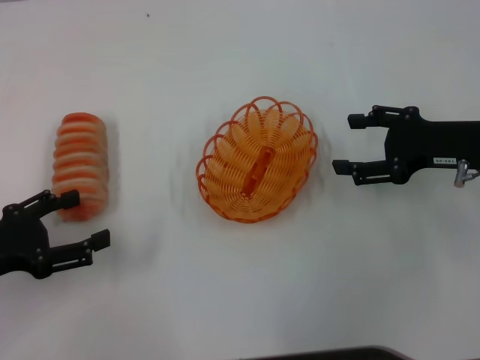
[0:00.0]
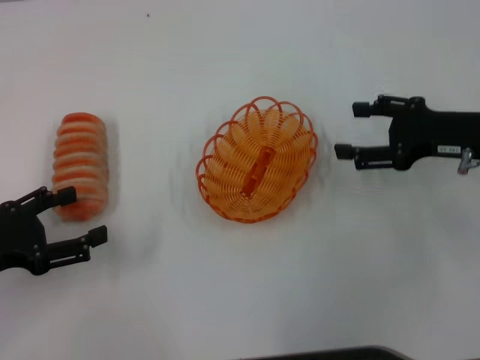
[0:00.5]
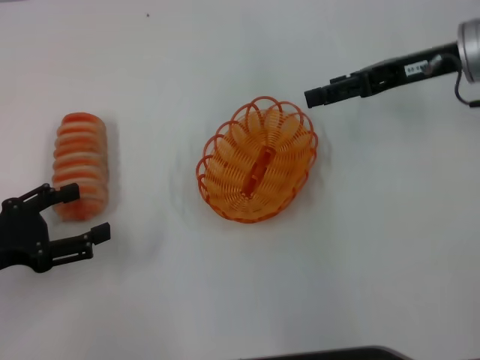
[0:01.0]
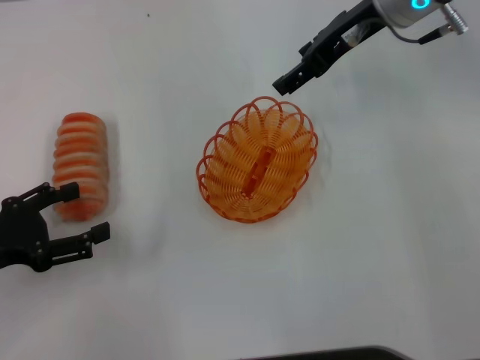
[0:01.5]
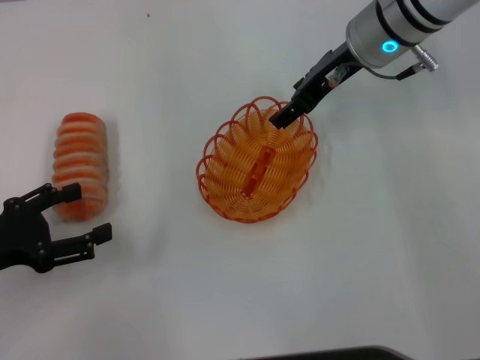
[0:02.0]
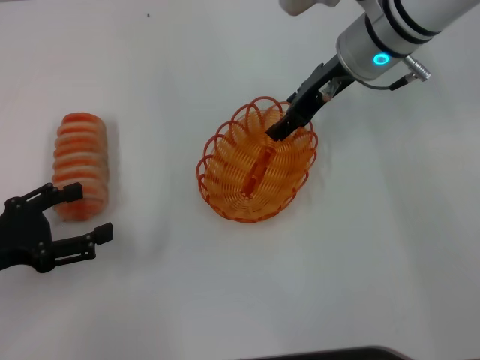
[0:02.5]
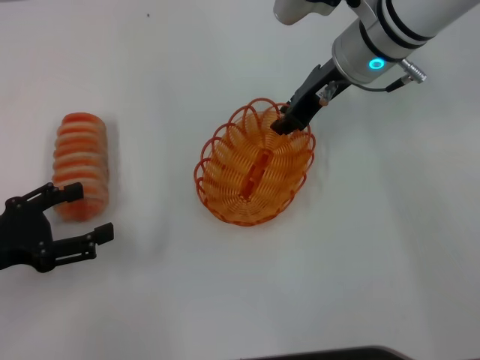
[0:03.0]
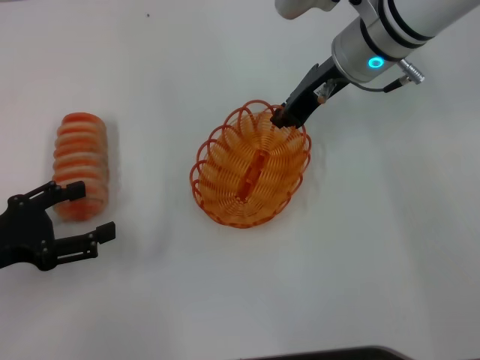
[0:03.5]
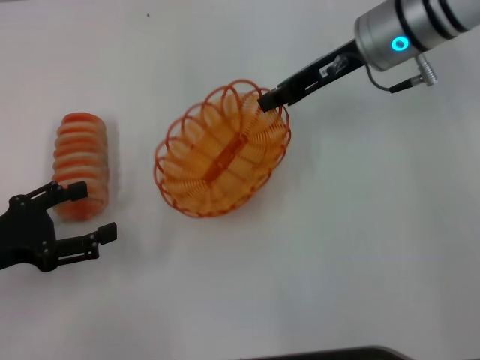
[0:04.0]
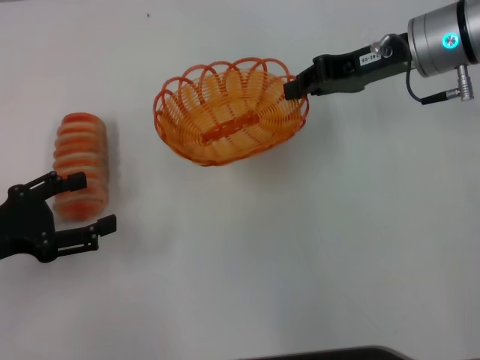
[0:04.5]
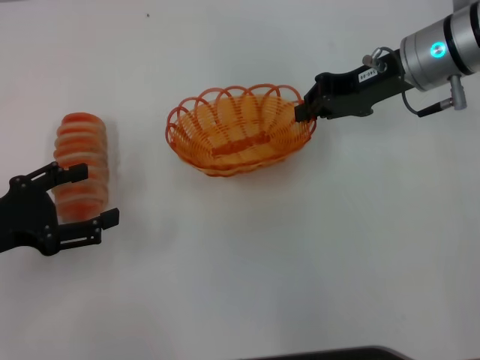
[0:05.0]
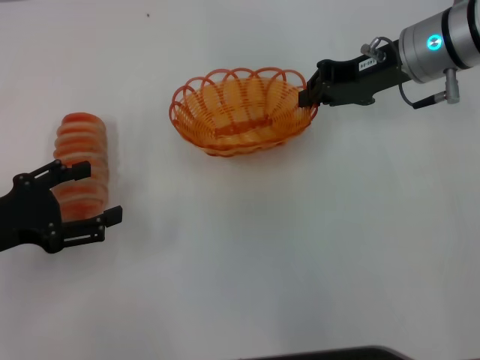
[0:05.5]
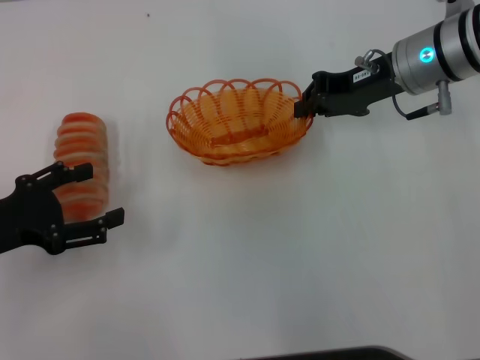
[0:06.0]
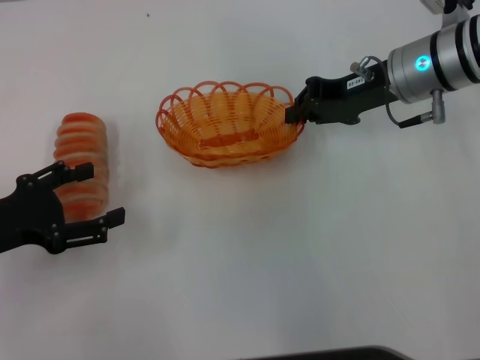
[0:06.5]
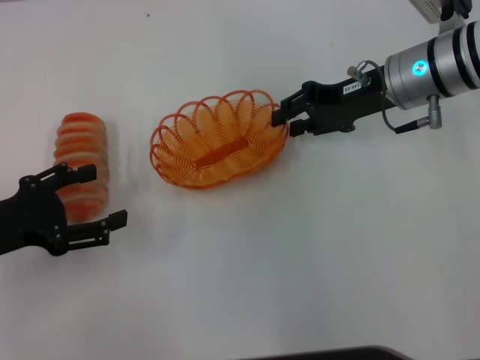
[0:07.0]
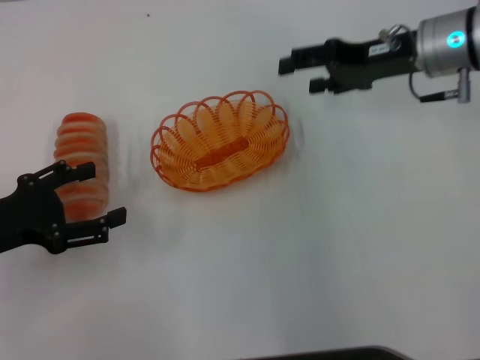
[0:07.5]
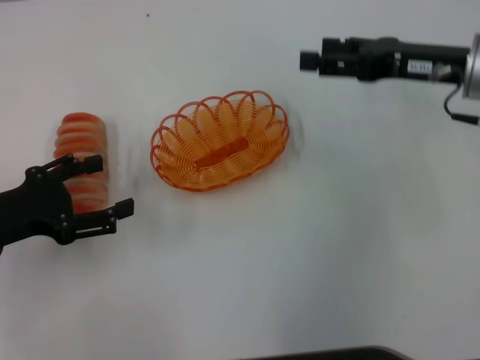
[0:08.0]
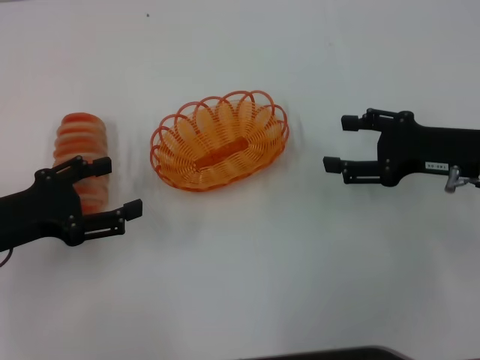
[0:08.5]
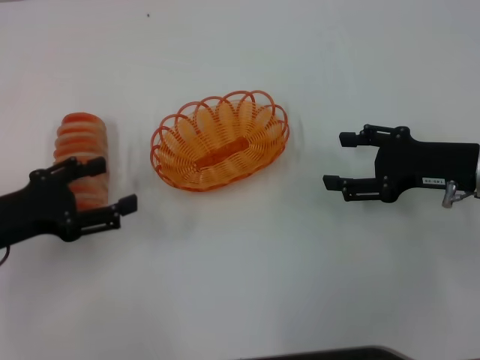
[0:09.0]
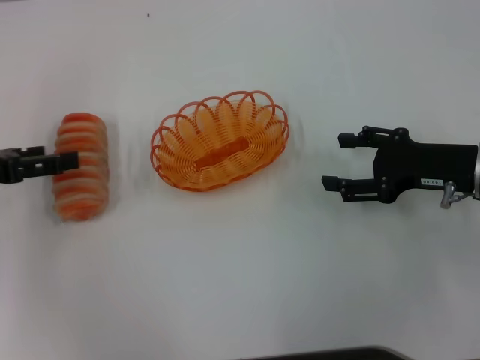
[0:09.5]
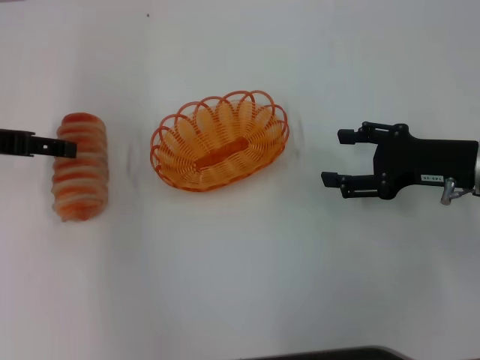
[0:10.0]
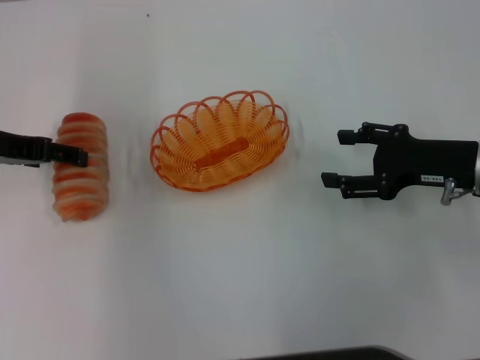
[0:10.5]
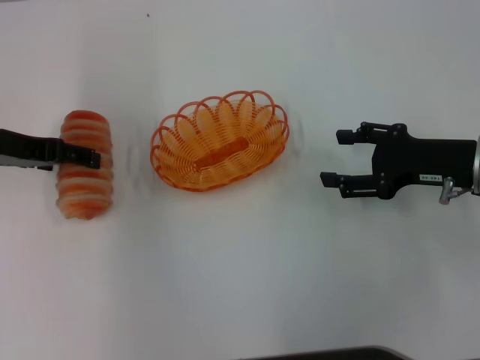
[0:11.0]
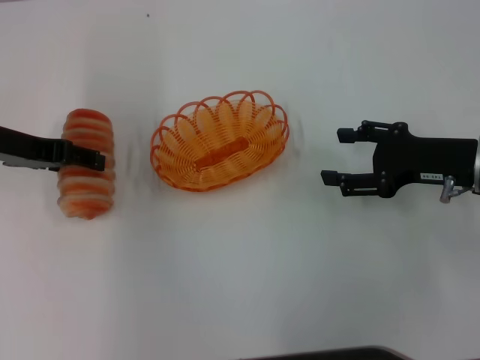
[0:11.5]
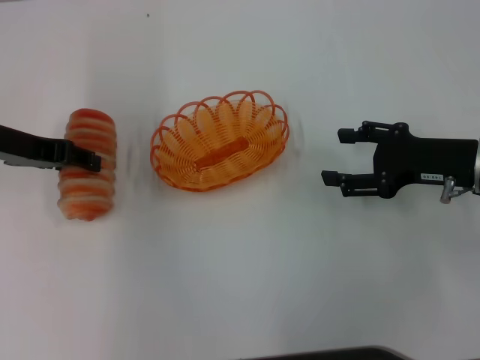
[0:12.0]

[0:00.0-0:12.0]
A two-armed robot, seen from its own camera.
Step, 0:00.0 to 0:04.0: Pick up the basket with the right gripper.
Step, 0:04.5 to 0:07.0: Place the basket in the center of view with the right gripper.
0:00.0 to 0:02.0: The right gripper is displaced to the left, forward and upward by roughly 20 cm.
0:02.0 to 0:04.0: The right gripper closes up.
0:06.0 to 0:08.0: The right gripper moves to the right, roughly 5 cm, and opens up.
0:08.0 to 0:10.0: The left gripper moves forward and upward, some 10 cm. The right gripper heads backward and downward, covering about 10 cm.
0:10.0 to 0:12.0: The left gripper closes up.

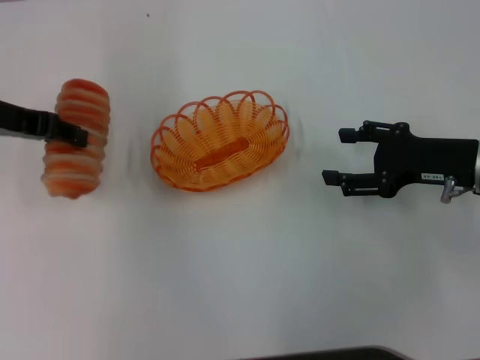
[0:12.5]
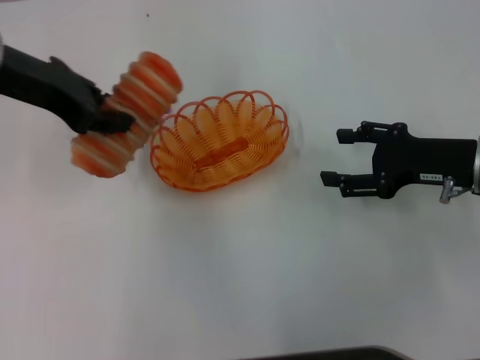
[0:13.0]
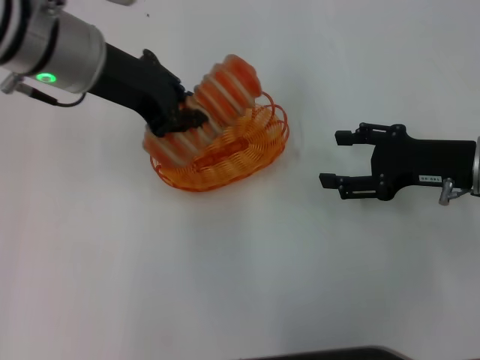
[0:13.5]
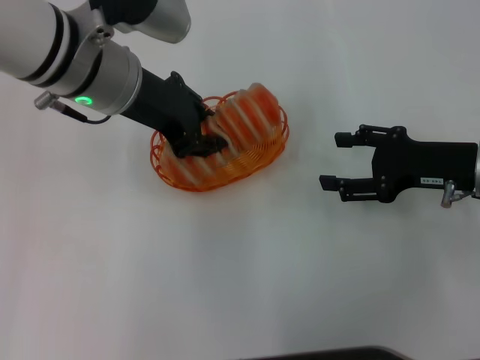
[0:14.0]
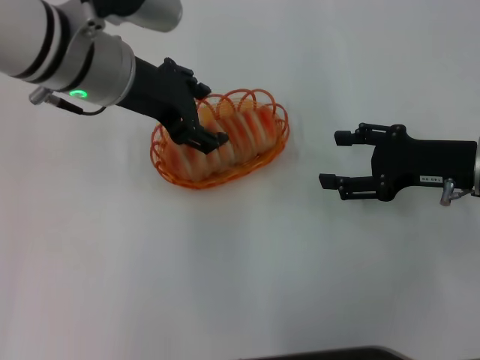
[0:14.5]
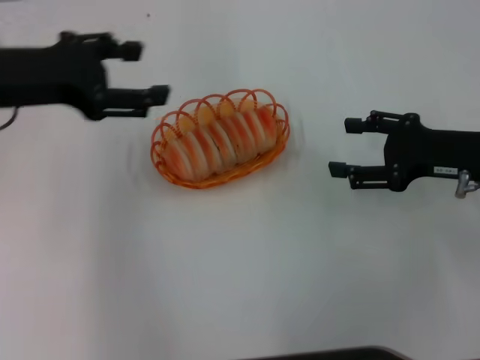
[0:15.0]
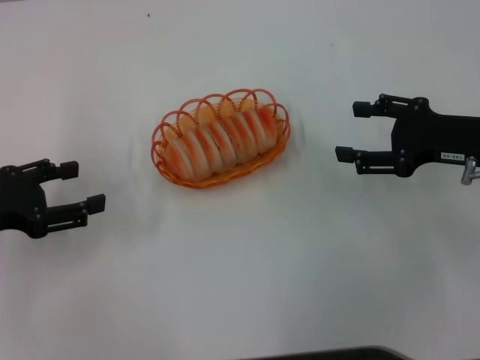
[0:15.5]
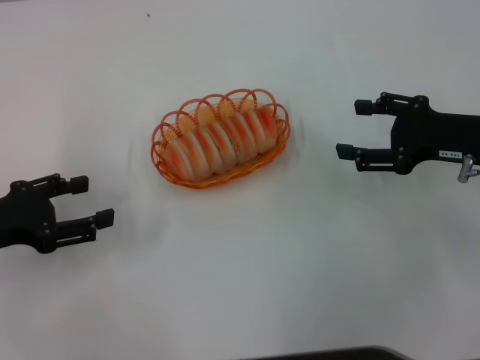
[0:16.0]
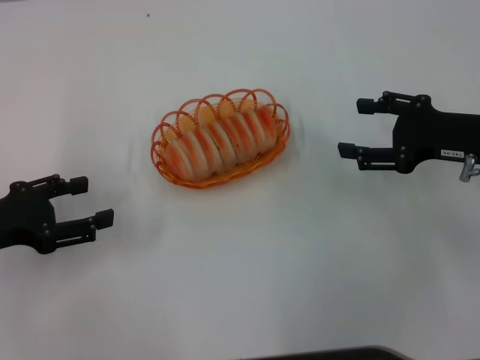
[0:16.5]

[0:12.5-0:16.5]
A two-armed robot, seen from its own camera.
Step, 0:13.0 to 0:14.5: Place the long bread into the basket with the left gripper.
0:12.5 to 0:14.5: The left gripper heads to the right, covering about 15 cm, and opens.
0:14.5 to 0:16.5: The left gripper is displaced to the left, downward and backward by about 25 cm.
